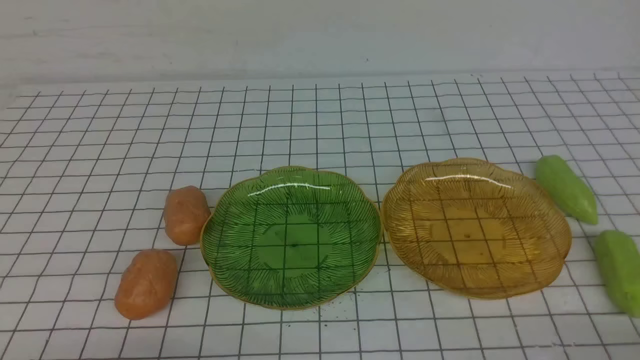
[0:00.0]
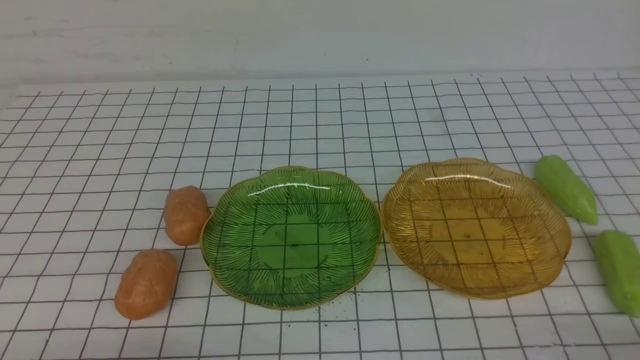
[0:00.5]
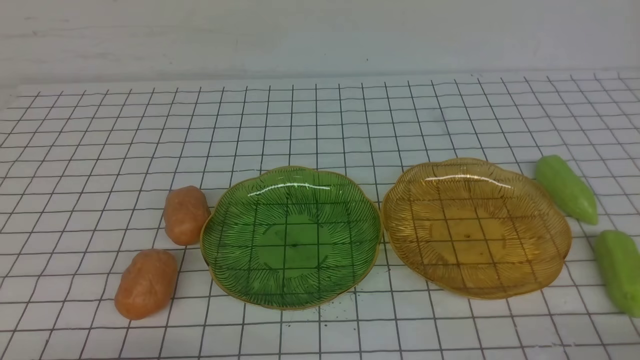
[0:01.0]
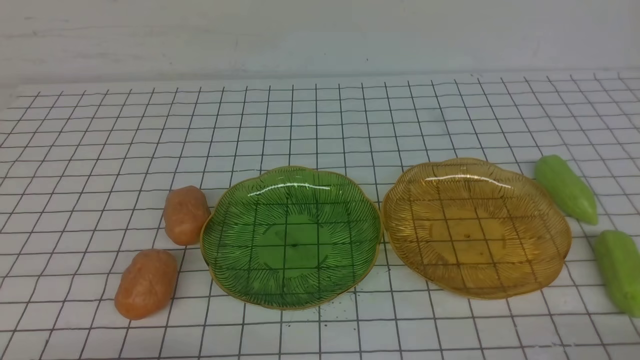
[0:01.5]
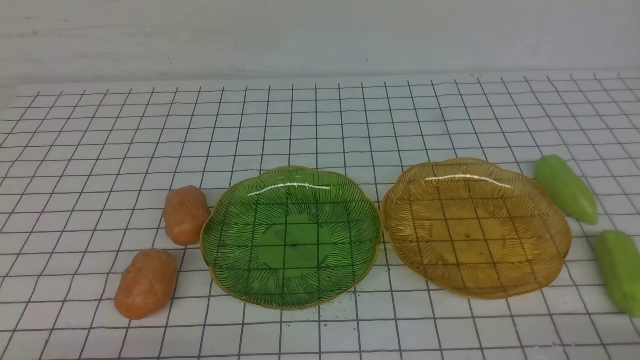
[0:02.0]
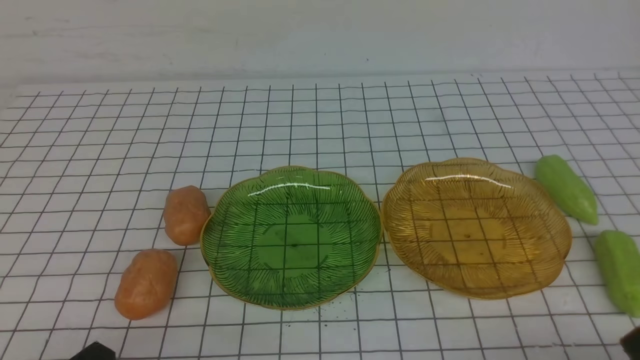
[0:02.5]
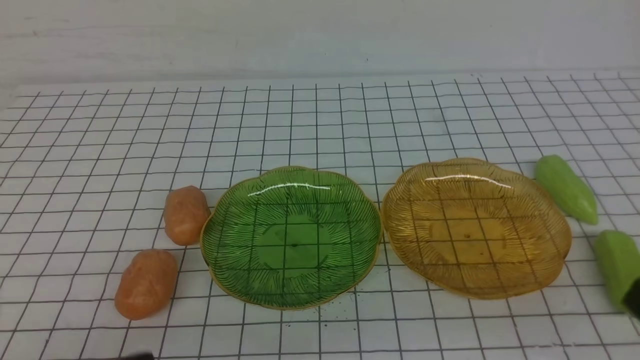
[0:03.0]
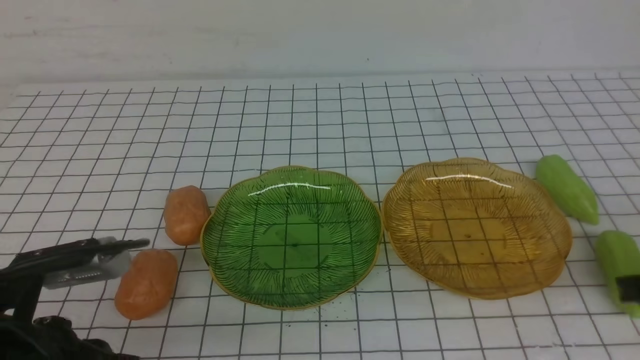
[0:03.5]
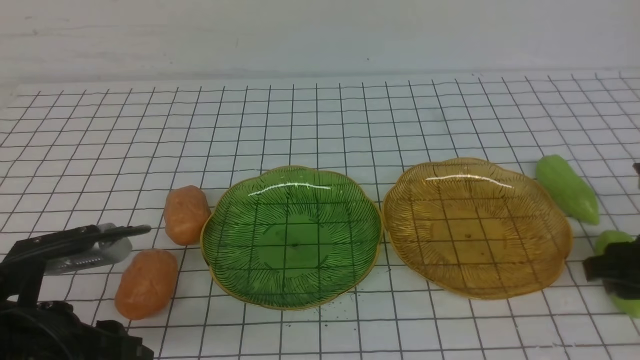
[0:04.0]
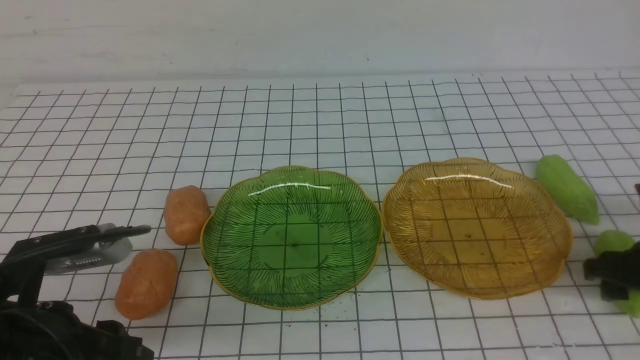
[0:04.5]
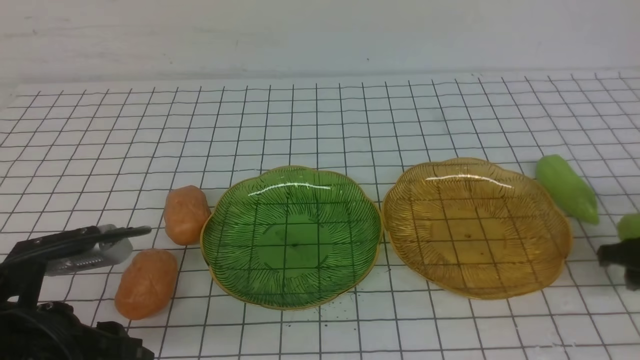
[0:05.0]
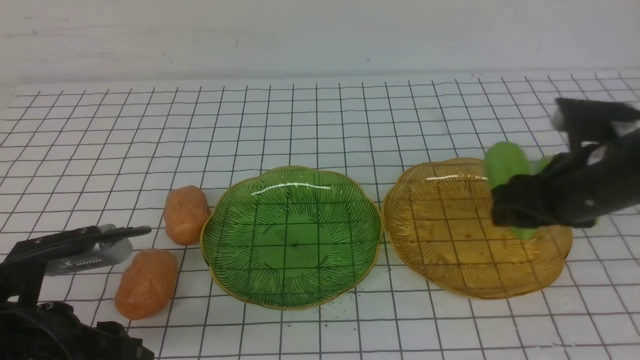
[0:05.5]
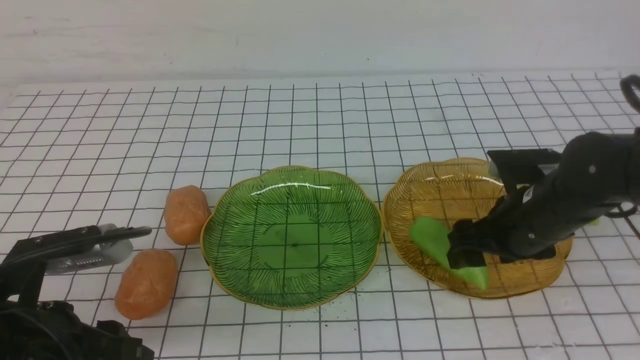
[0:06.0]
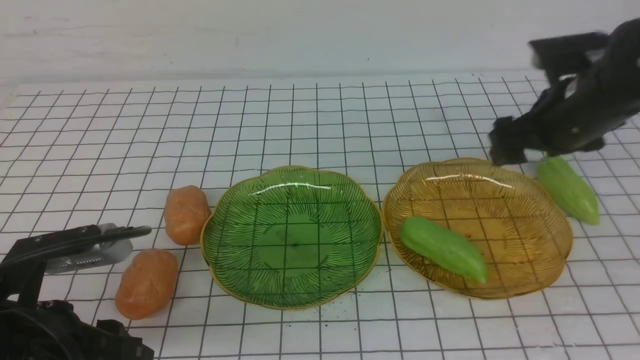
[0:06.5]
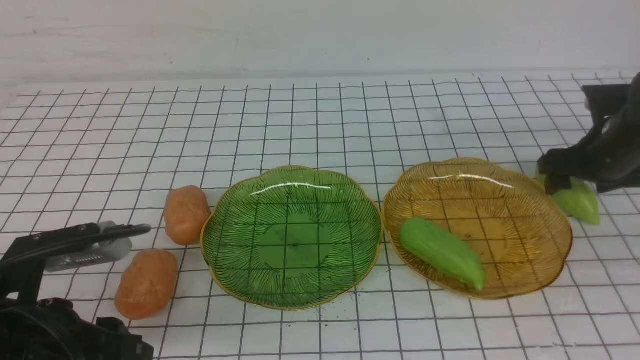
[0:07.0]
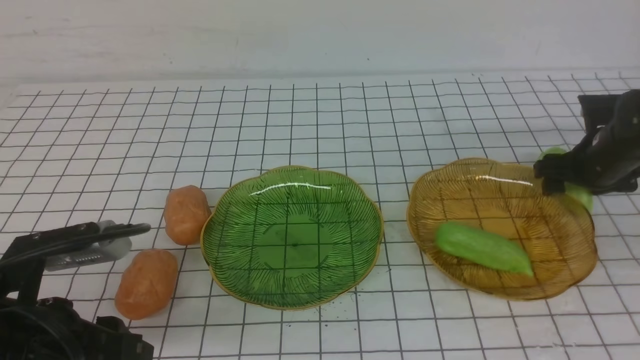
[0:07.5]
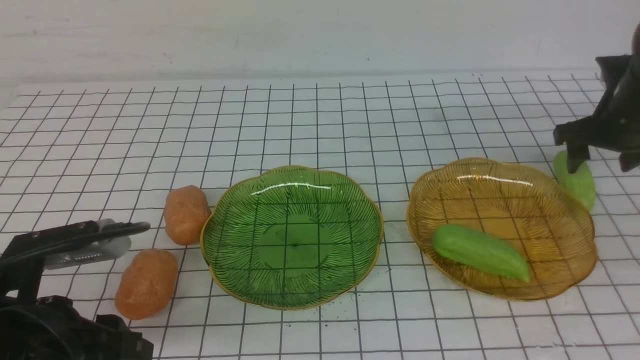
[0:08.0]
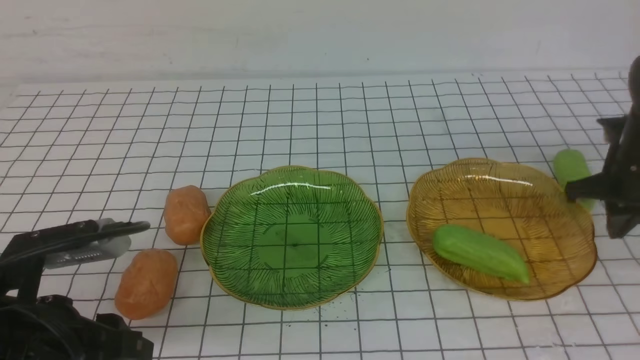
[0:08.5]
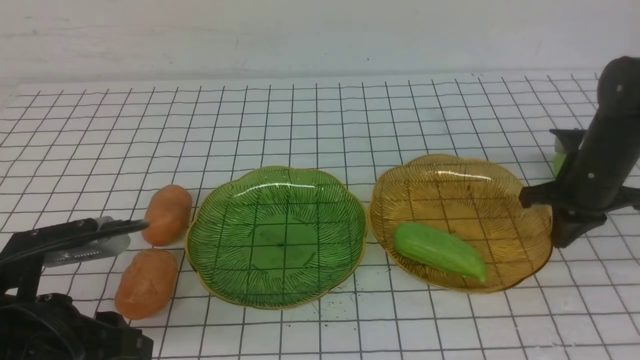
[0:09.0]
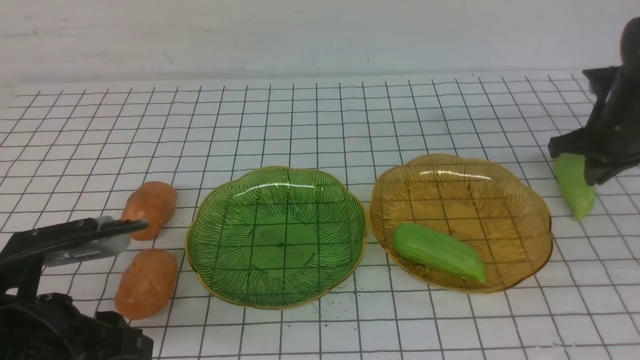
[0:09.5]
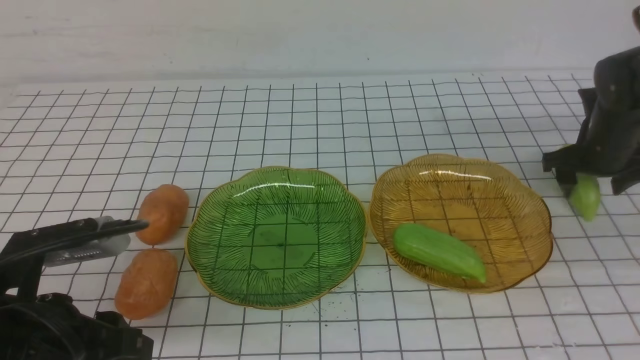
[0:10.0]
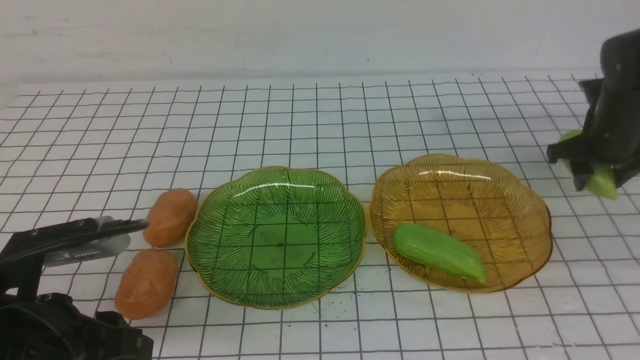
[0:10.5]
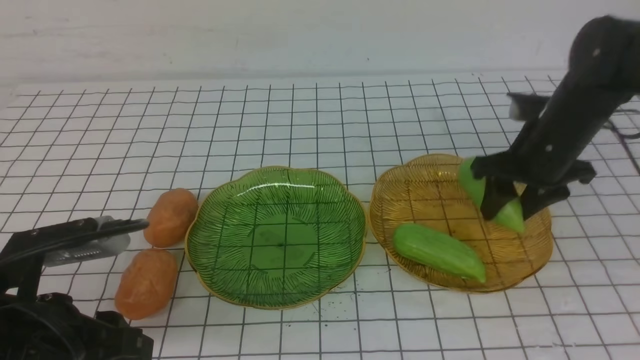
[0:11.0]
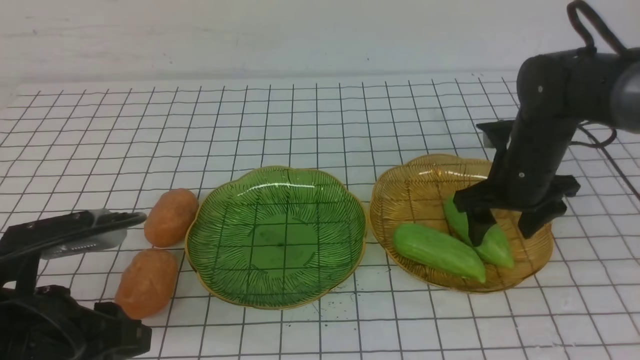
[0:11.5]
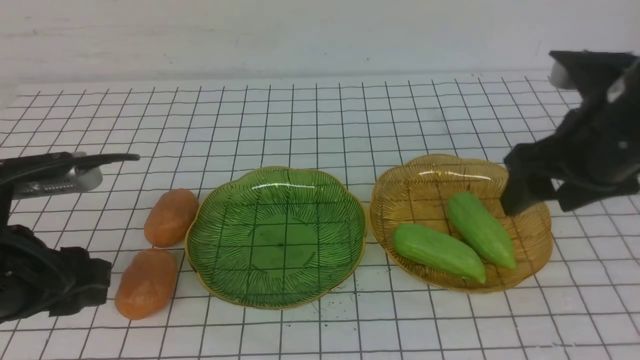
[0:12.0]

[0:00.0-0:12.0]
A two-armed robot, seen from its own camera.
Step, 0:00.0 to 0:11.5: use the right arm to grab a chayote and put it into the right plate.
0:02.0 to 0:04.0: The left gripper travels forward and upward by roughly 10 cm, and opens. Meanwhile the right gripper travels forward by about 20 cm, and opens.
0:04.0 to 0:06.0: The right gripper heads to the left and forward, covering about 15 cm.
0:06.0 to 0:08.0: The right gripper goes approximately 15 cm to the right and forward.
0:08.0 to 0:10.0: The right gripper closes and opens again.
0:10.0 to 0:12.0: The right gripper travels backward, upward and to the left by some 25 cm, while the left gripper moves roughly 5 cm.

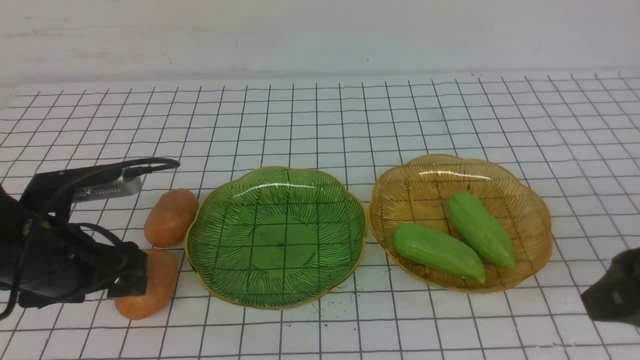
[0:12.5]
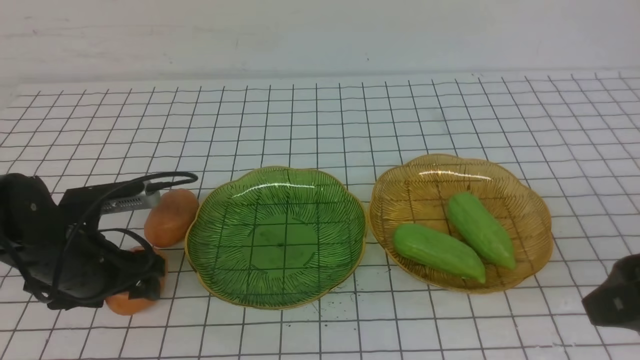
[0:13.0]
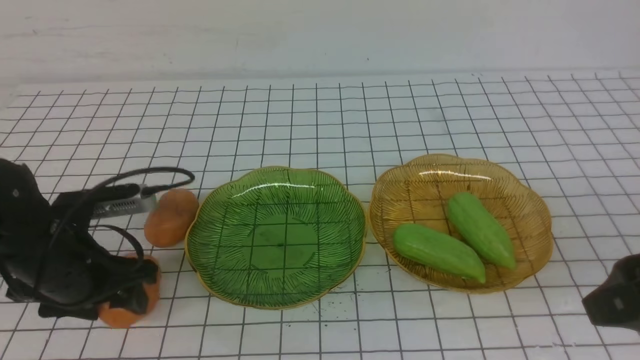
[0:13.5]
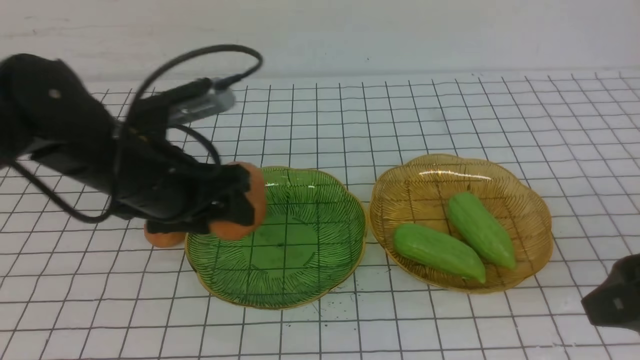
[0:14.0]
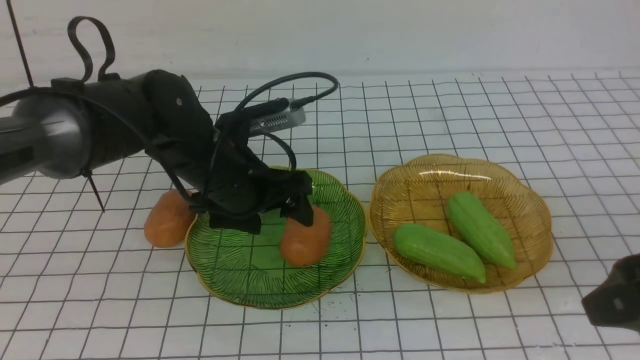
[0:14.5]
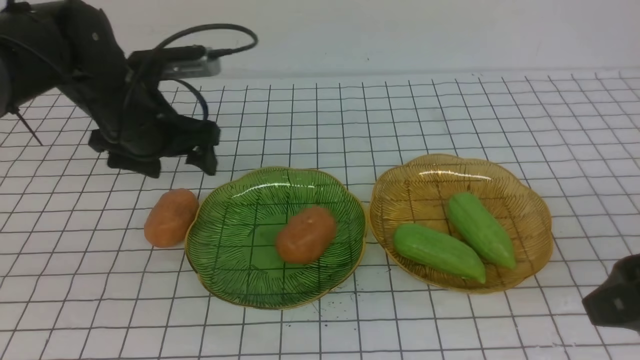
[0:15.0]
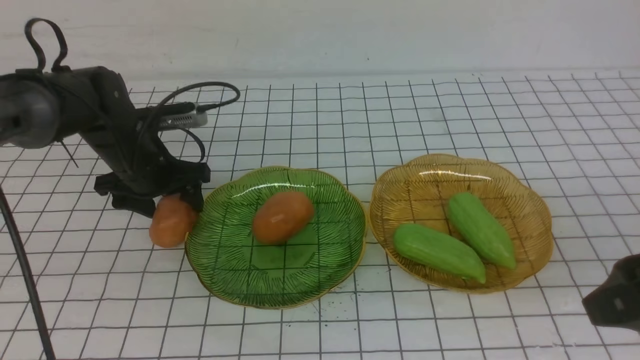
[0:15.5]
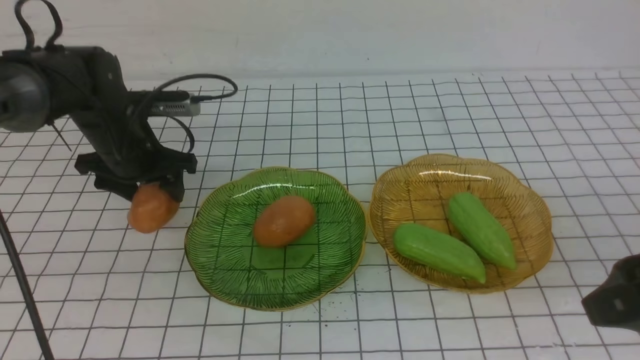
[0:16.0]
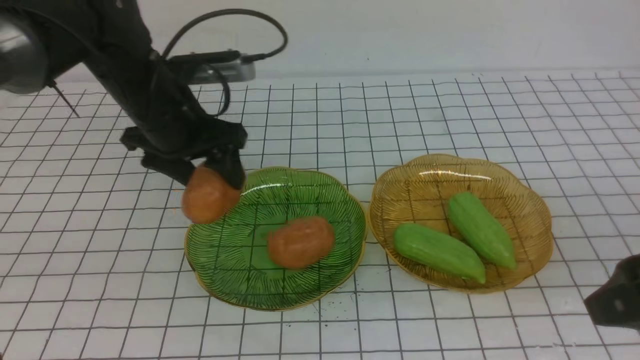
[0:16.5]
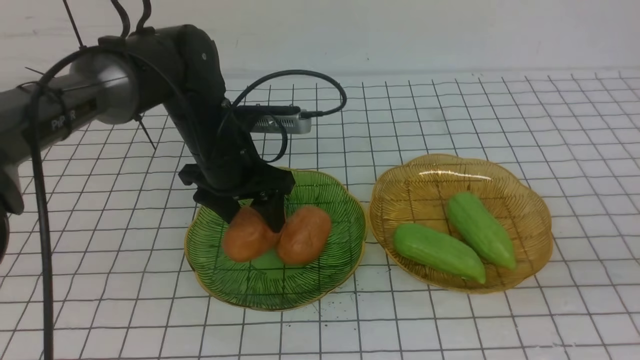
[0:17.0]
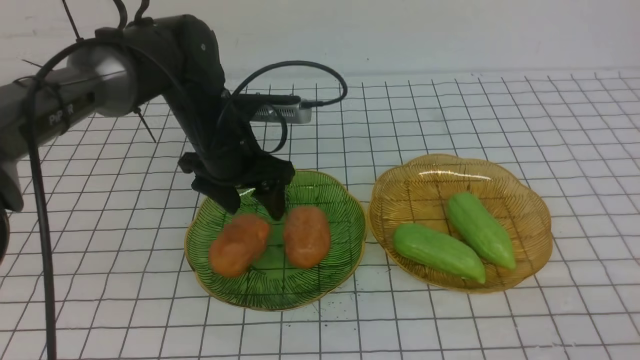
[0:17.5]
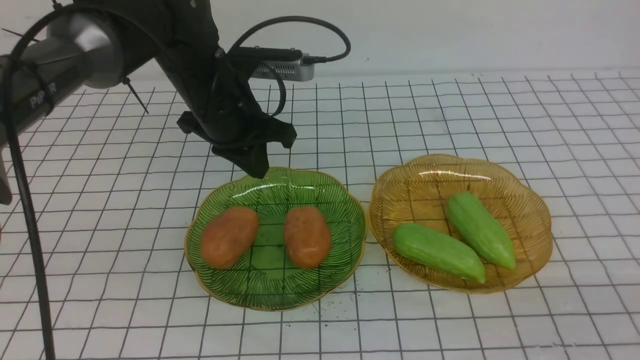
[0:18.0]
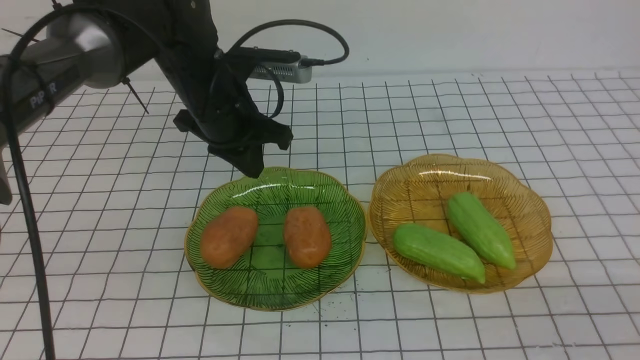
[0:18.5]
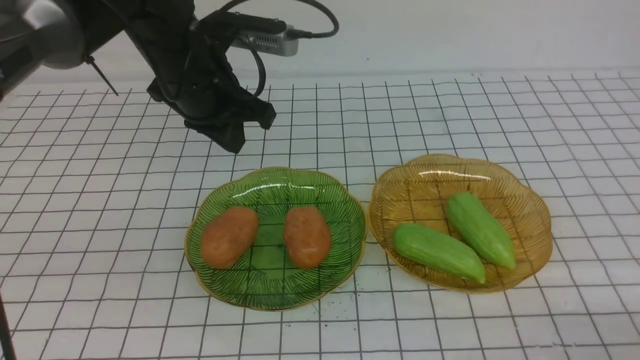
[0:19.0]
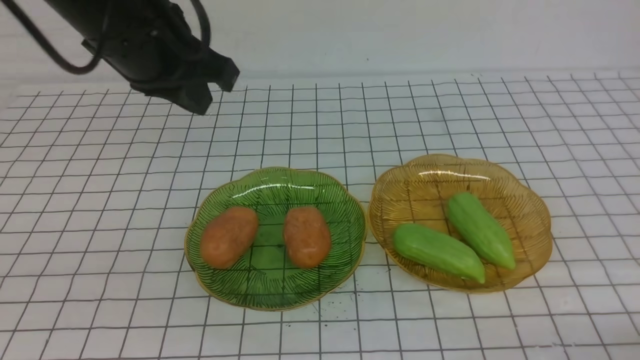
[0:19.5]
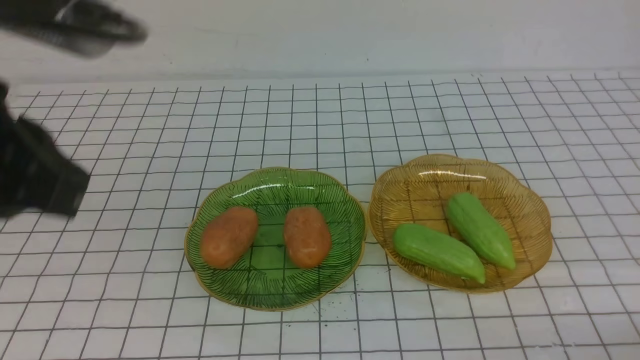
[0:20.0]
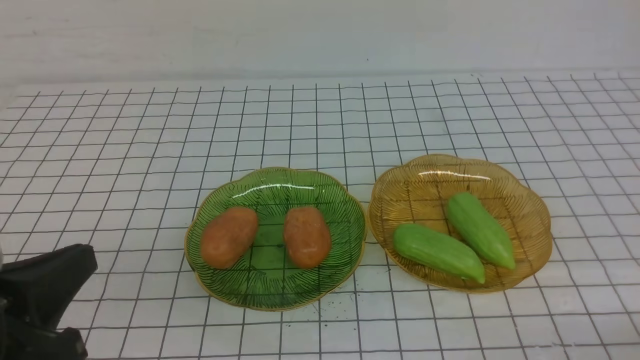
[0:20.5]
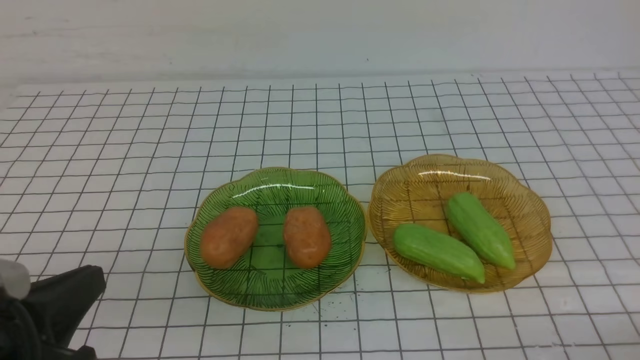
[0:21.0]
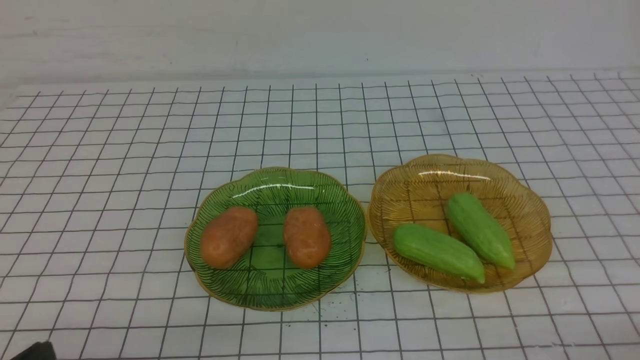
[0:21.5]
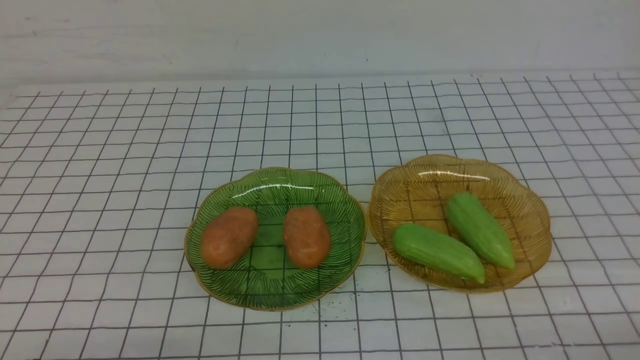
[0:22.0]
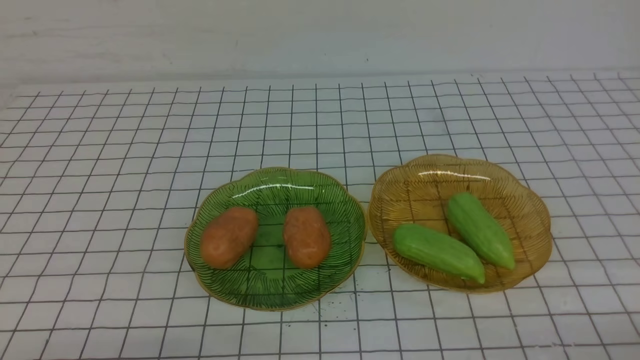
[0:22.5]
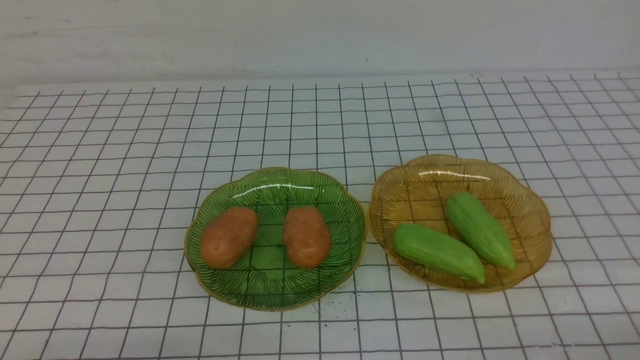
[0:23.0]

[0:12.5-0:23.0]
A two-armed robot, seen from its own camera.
Step, 0:12.5 to 0:17.0: Grab a potato with your left arm and put it on the left plate.
0:12.5 to 0:14.5: The left gripper goes some 15 cm to the right and forward.
0:14.5 to 0:16.5: The left gripper moves to the left, about 5 cm.
0:16.5 to 0:19.0: The right gripper shifts some 15 cm downward and backward, and closes its fingers. The left gripper moves upward, some 5 cm, and closes its fingers.
0:19.0 to 0:21.0: The left gripper heads backward, covering approximately 30 cm.
0:21.0 to 0:23.0: The left gripper travels downward by roughly 10 cm.
